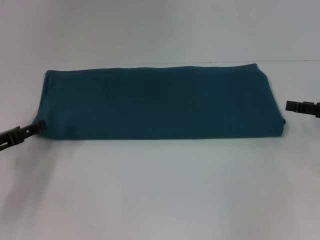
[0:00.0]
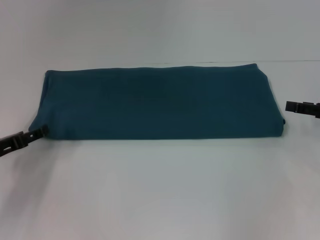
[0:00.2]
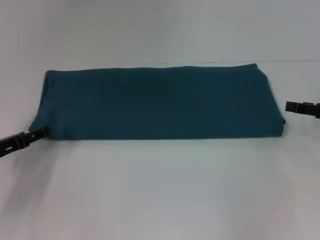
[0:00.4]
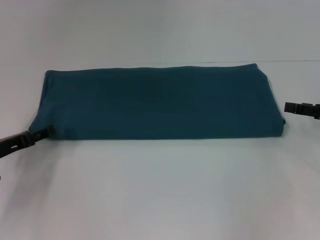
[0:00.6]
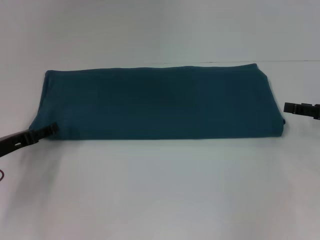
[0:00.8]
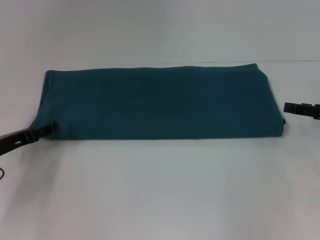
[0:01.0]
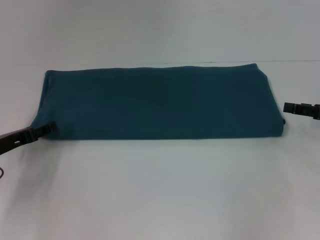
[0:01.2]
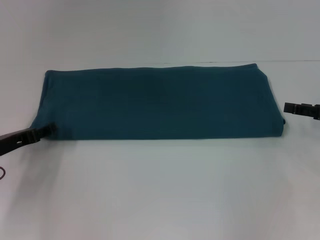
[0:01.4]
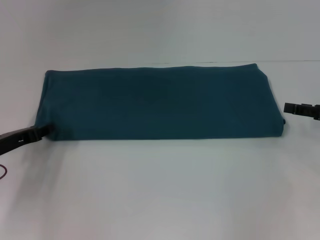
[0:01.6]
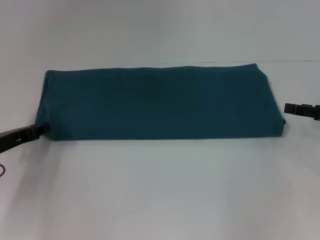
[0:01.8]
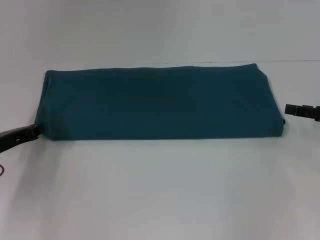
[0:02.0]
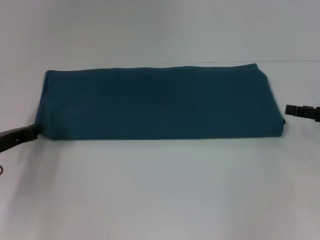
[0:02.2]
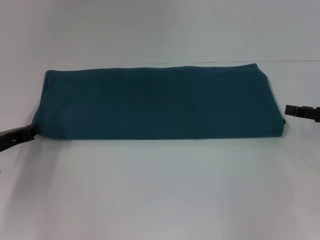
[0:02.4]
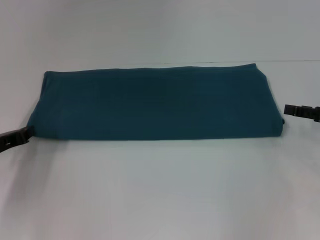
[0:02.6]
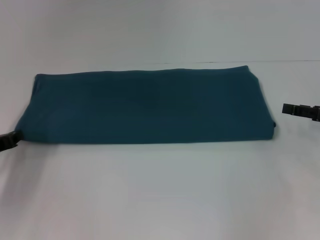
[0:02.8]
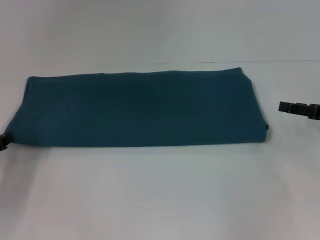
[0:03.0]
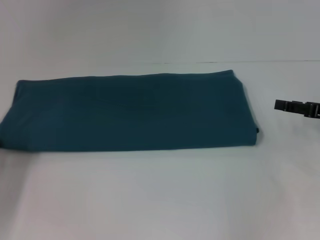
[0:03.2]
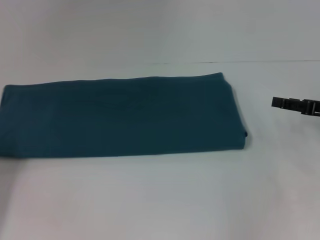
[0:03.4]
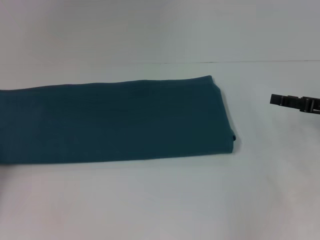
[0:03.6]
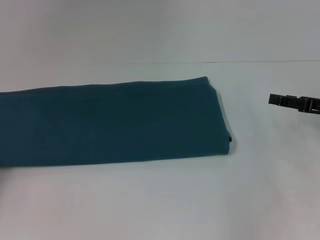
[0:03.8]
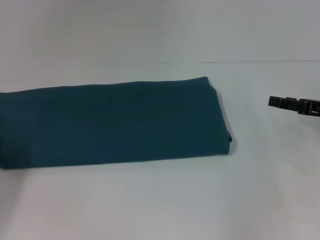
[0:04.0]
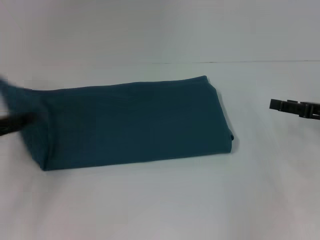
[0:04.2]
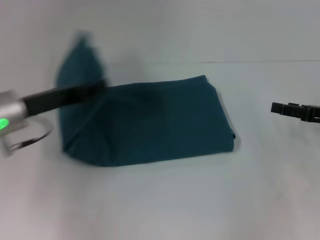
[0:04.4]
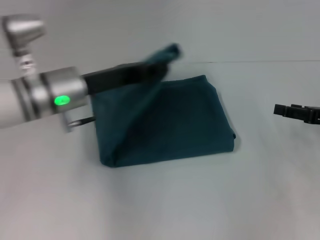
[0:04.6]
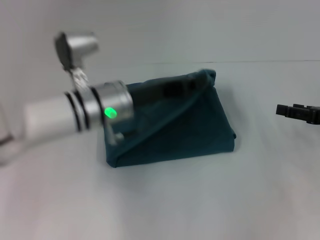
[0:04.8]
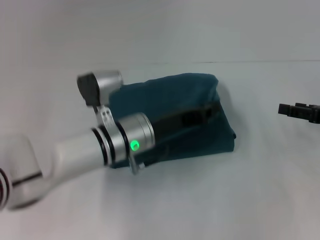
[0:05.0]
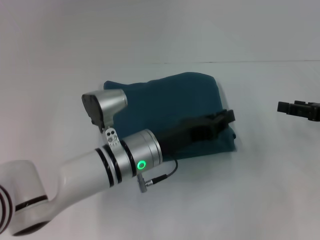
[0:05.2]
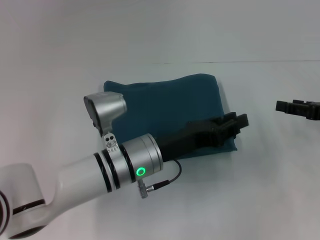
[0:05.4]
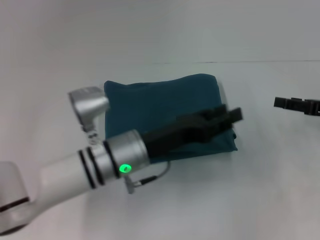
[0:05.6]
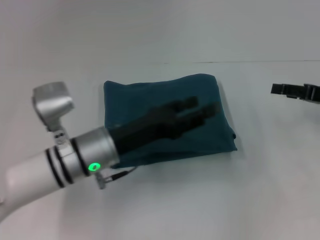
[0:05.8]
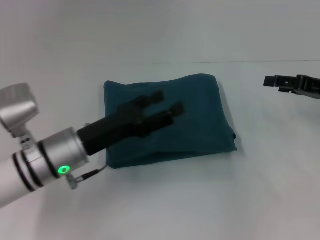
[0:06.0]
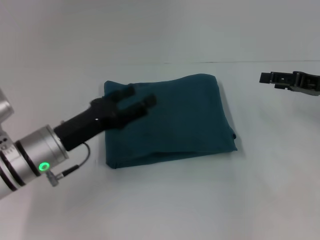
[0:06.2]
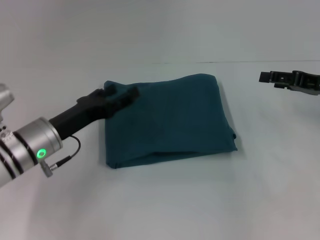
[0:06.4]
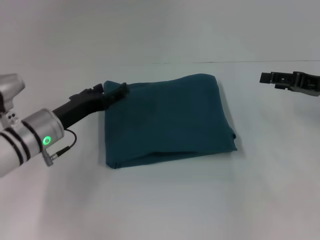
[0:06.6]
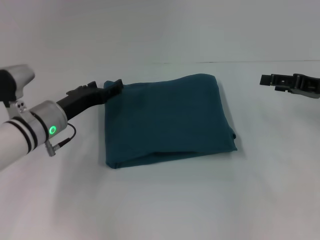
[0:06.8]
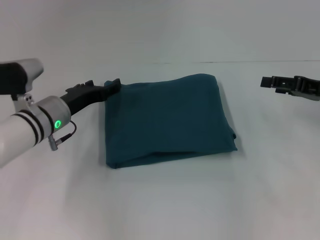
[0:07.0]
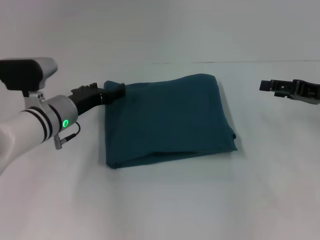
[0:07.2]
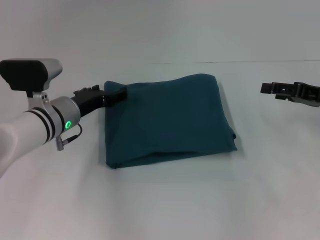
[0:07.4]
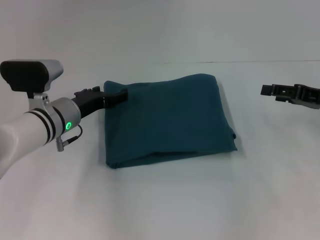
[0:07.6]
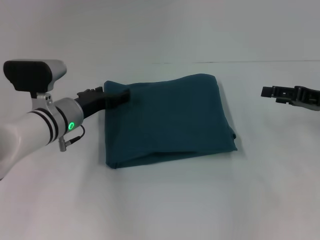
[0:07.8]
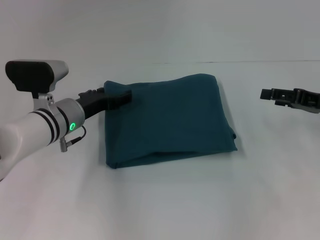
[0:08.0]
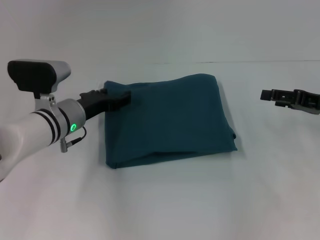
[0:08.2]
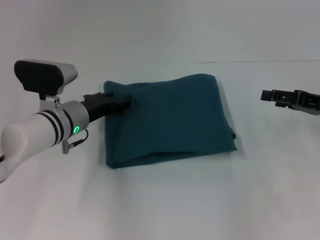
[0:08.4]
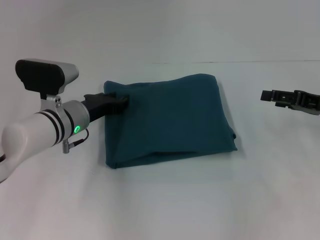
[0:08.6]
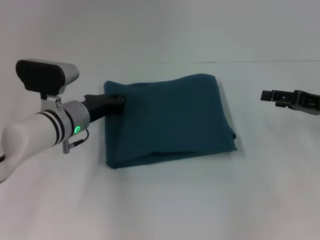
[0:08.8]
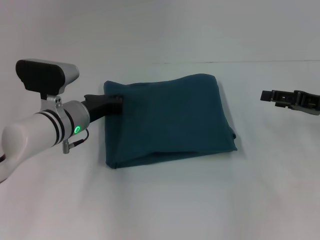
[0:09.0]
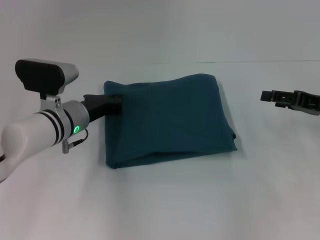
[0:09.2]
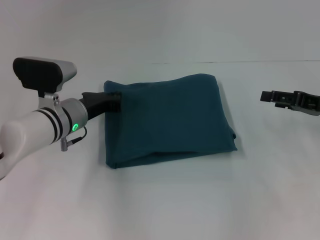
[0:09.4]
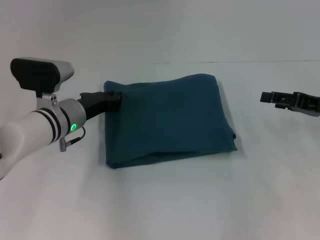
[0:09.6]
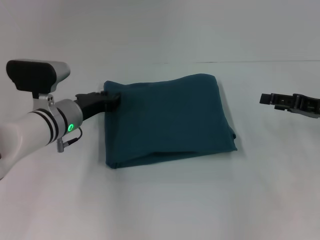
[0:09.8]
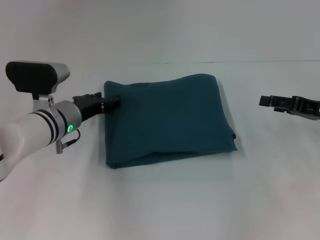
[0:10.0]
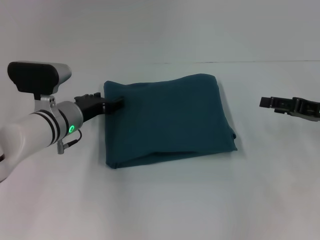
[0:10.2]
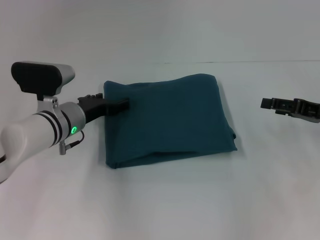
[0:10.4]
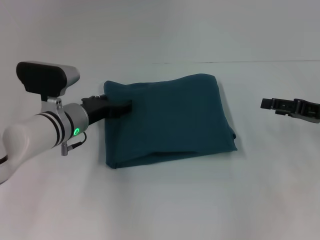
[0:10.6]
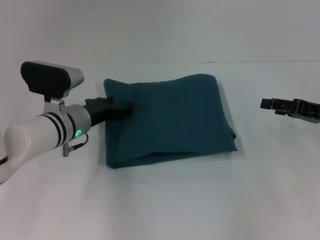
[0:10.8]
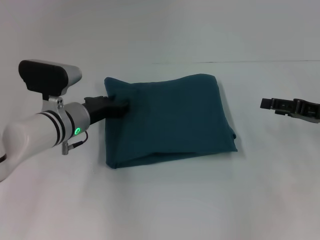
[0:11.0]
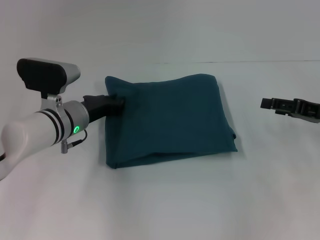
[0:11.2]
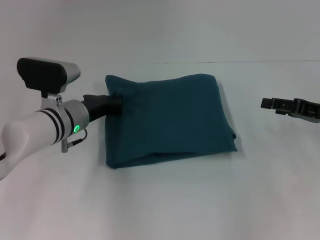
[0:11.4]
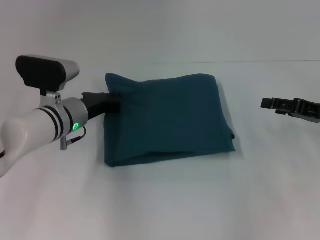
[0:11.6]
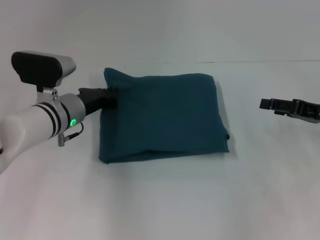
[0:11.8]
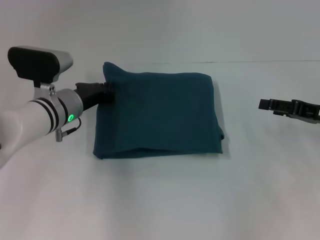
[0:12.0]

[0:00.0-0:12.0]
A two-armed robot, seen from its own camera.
Step, 0:00.0 to 0:05.4: Fold the clothes to the left.
0:00.0 to 0:01.6: The grippers stay close to where they were, moving slightly.
0:01.6 to 0:03.0: The left gripper ends up some 5 cm from where it was, and closes its fingers.
0:03.0 to 0:04.4: The left gripper is displaced to the right, upward and forward by about 15 cm.
0:04.4 to 0:06.0: The left gripper moves to the right and downward, some 10 cm, and opens up.
0:06.0 to 0:07.6: The left gripper heads forward, covering about 10 cm.
0:07.6 to 0:09.0: The left gripper closes.
0:09.0 to 0:10.4: The left gripper opens.
0:10.4 to 0:12.0: The left gripper closes its fingers.

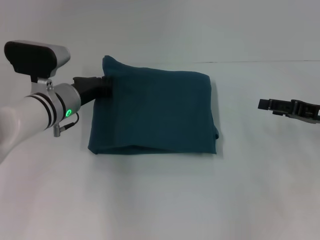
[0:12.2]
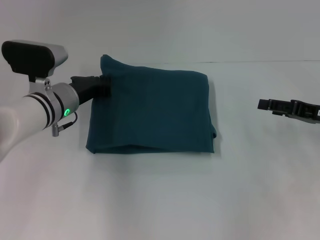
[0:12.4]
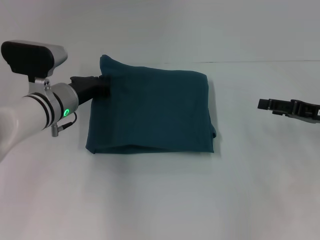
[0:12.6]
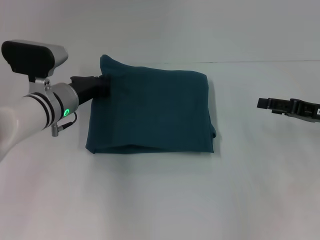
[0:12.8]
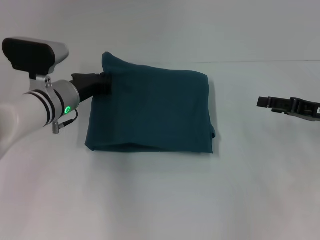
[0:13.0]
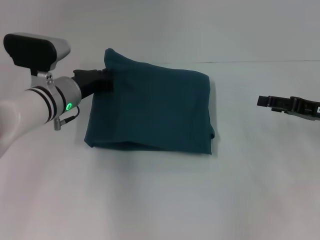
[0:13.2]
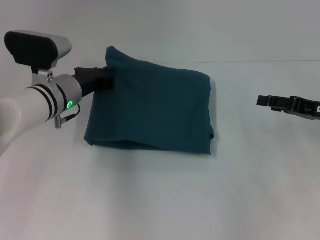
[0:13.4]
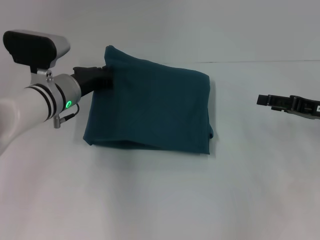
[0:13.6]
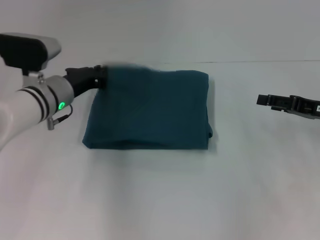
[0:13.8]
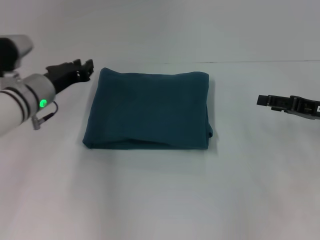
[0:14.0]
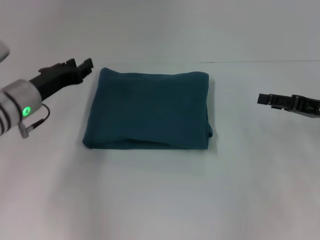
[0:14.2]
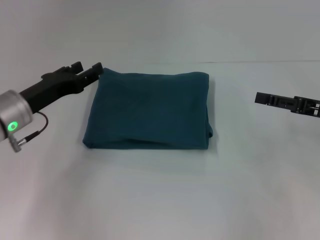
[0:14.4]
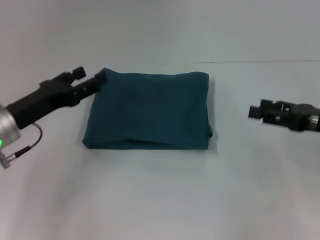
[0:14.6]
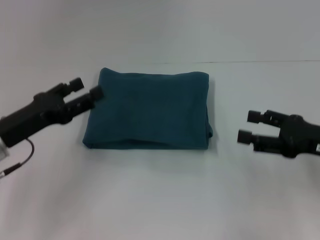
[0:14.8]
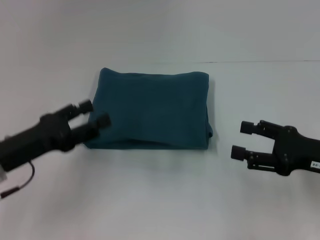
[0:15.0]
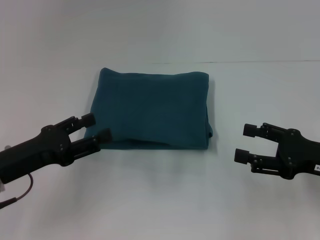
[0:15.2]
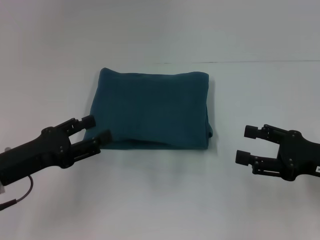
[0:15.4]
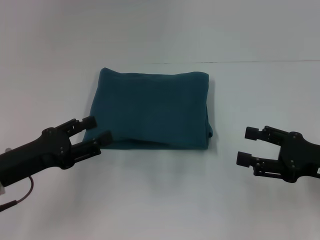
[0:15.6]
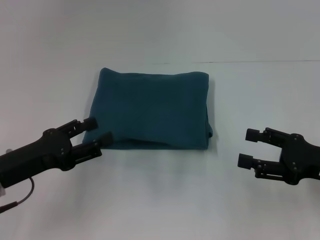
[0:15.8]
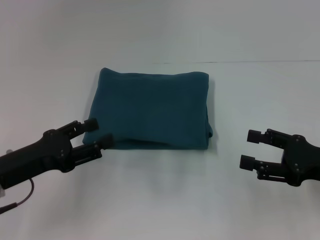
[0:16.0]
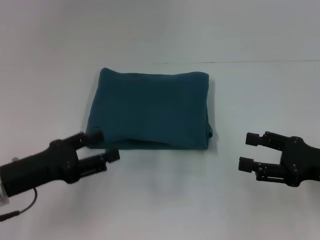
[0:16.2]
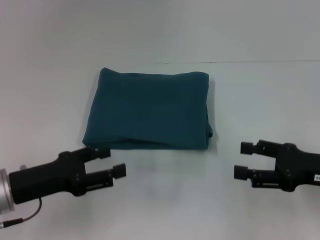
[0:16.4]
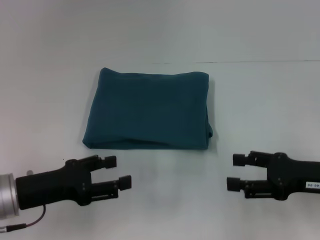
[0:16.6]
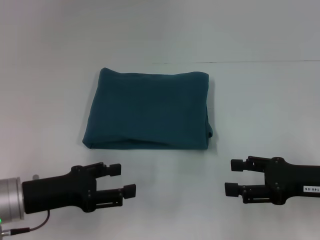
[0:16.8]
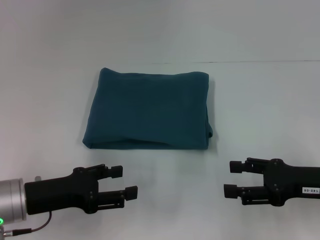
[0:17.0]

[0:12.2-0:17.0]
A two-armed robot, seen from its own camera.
0:12.2 to 0:13.8: The grippers move only a little.
0:13.8 to 0:15.4: The left gripper goes about 15 cm backward and to the left, and opens up. Meanwhile the right gripper travels backward by some 10 cm.
0:15.4 to 0:17.0: The grippers make only small movements.

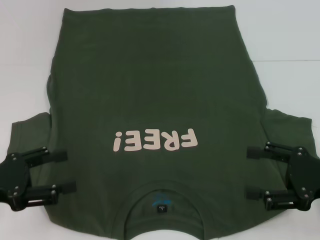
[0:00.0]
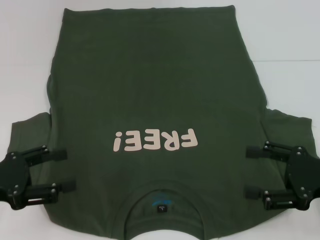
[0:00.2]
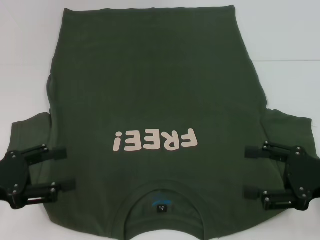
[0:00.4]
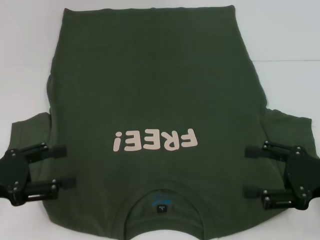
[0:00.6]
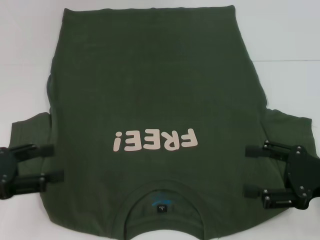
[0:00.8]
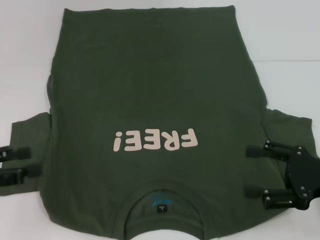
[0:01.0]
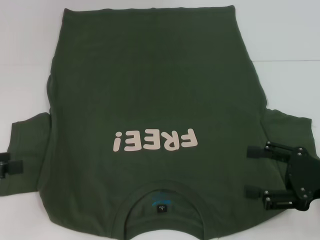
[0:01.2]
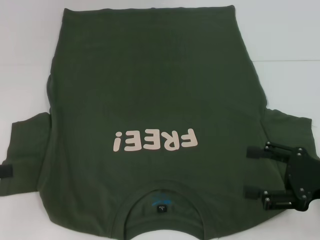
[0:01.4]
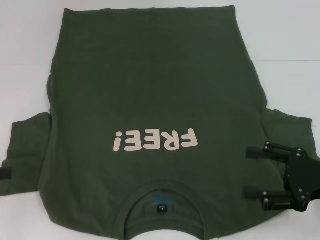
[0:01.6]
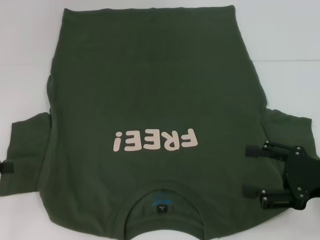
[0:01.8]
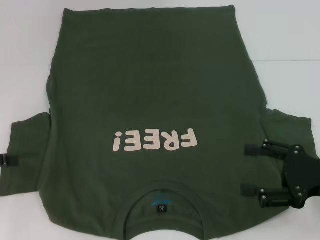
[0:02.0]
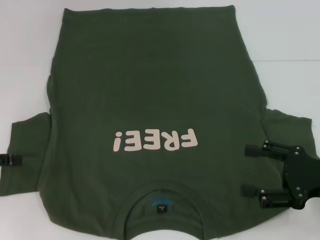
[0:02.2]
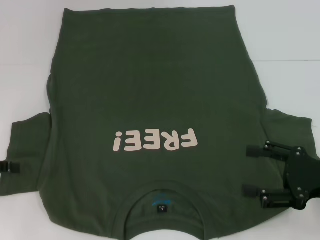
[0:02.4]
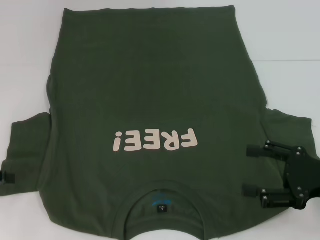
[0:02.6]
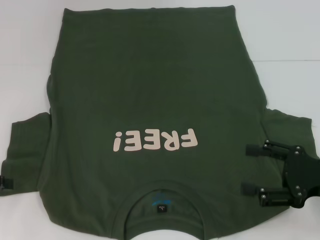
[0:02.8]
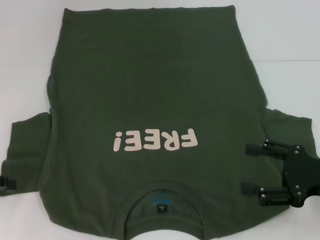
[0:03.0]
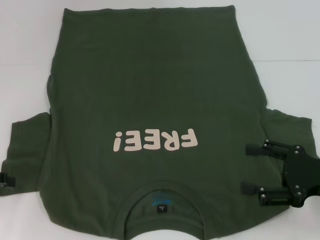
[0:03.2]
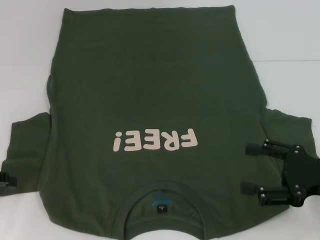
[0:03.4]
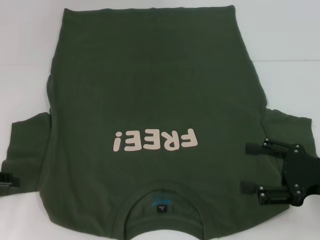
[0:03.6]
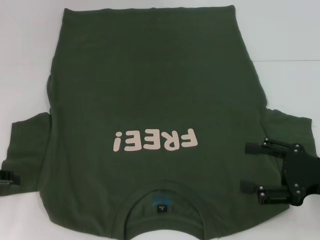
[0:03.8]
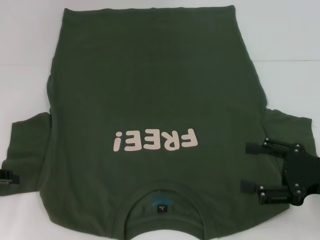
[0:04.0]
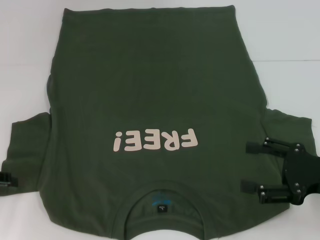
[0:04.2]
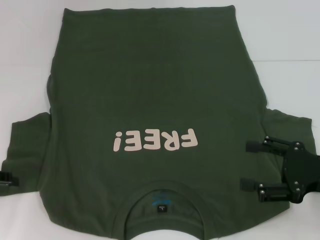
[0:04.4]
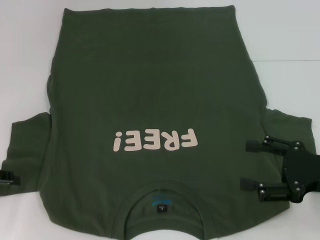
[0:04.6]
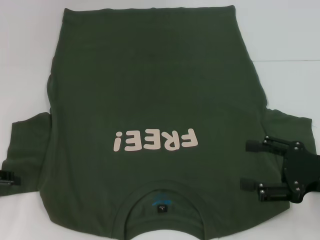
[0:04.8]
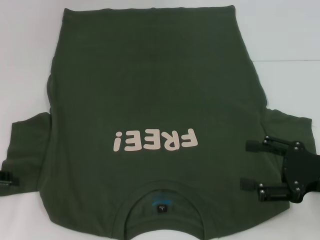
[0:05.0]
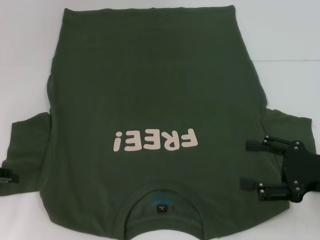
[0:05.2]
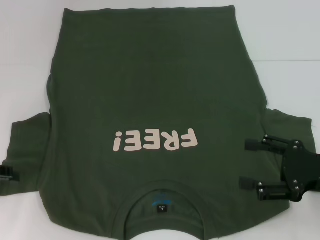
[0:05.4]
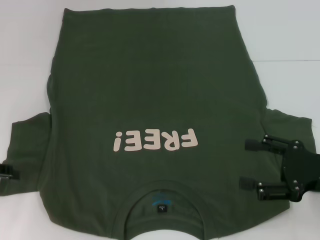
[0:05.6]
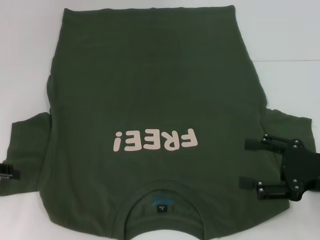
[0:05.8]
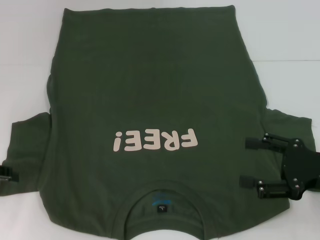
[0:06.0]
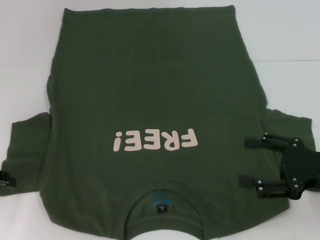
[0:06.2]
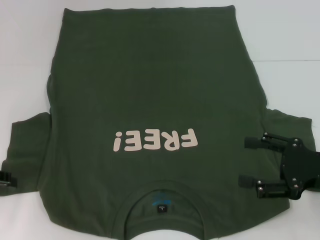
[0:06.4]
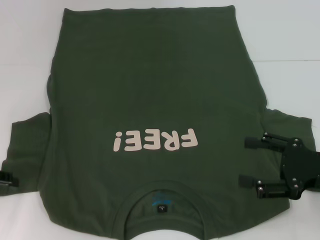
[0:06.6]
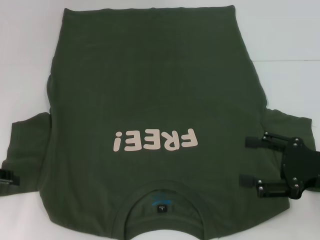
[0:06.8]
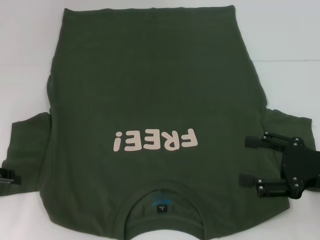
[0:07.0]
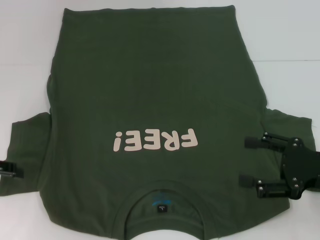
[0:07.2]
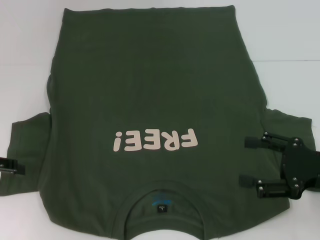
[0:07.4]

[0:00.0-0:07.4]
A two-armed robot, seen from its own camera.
0:00.0 to 0:01.4: The left gripper moves to the left, approximately 5 cm.
0:03.0 to 0:04.4: There are only small adjustments of the grippers.
